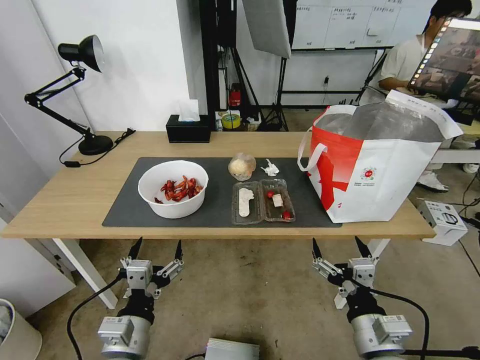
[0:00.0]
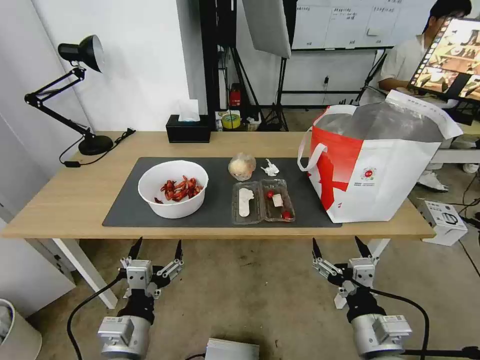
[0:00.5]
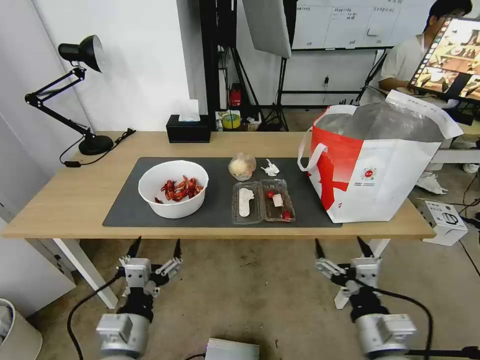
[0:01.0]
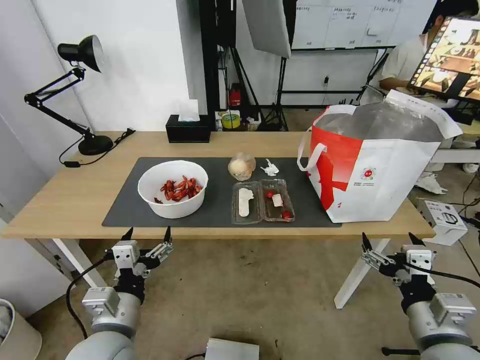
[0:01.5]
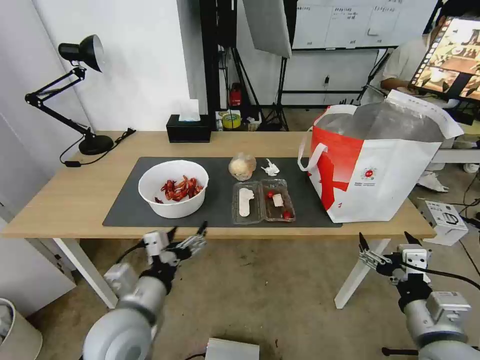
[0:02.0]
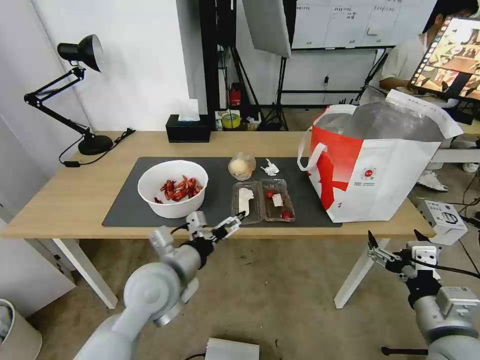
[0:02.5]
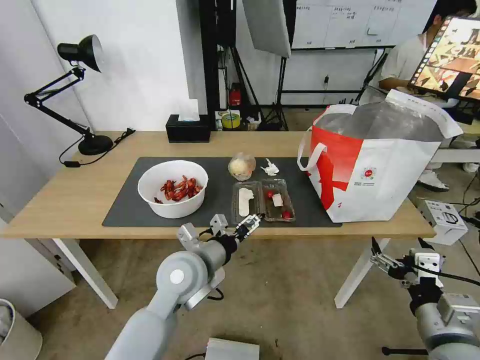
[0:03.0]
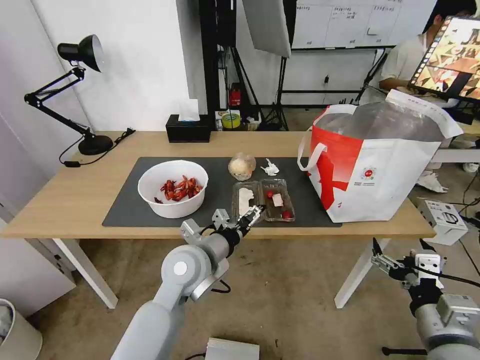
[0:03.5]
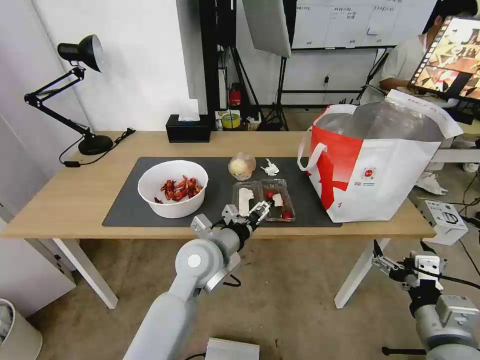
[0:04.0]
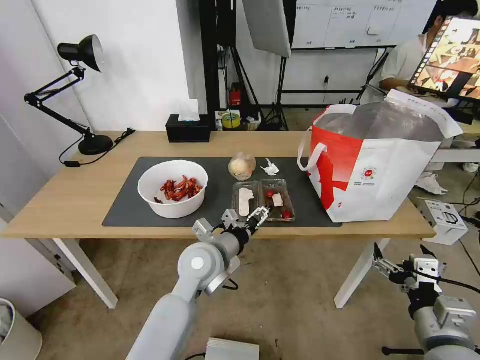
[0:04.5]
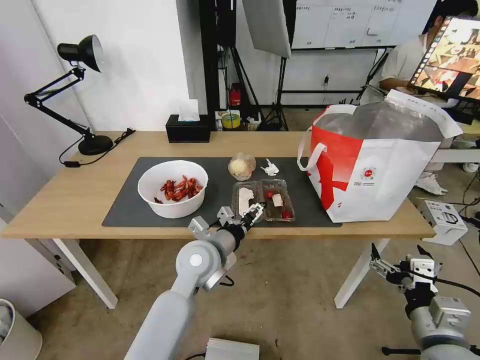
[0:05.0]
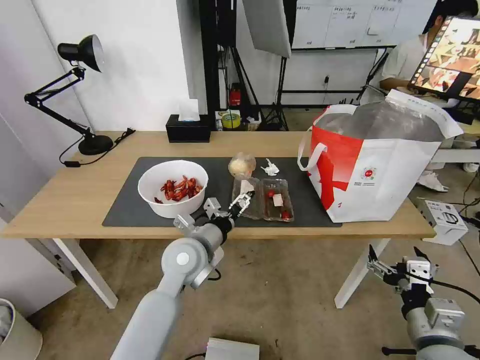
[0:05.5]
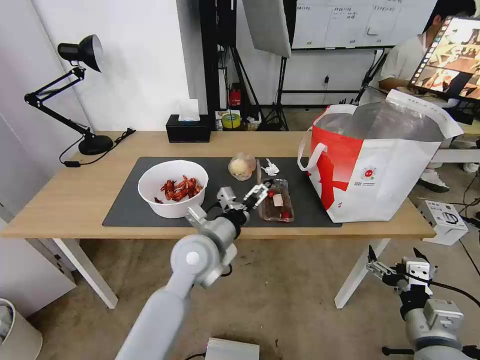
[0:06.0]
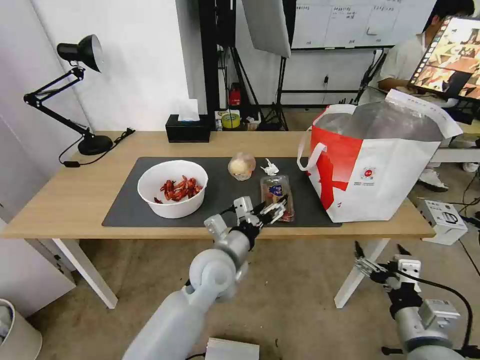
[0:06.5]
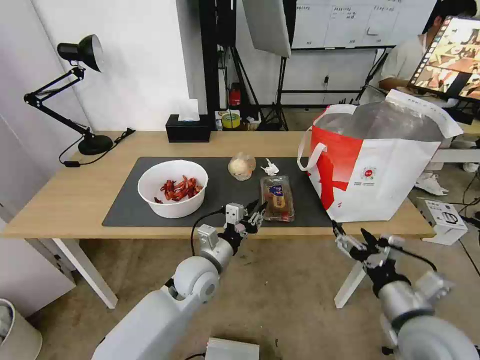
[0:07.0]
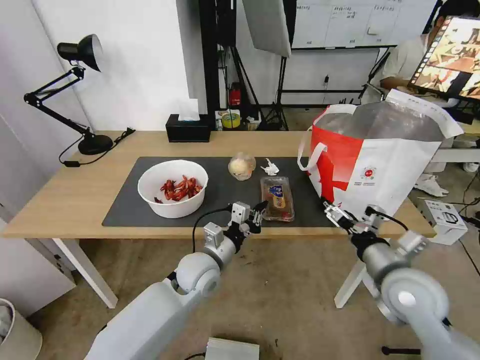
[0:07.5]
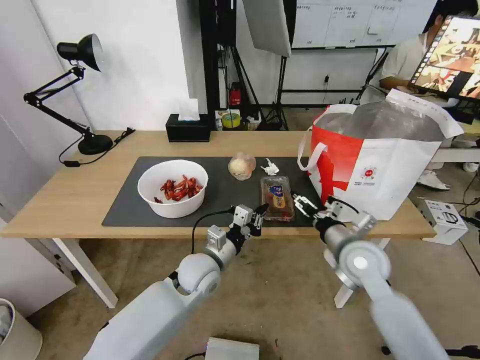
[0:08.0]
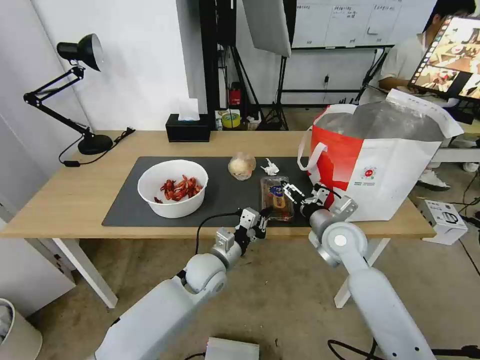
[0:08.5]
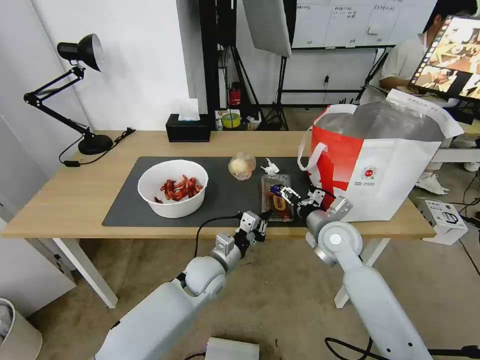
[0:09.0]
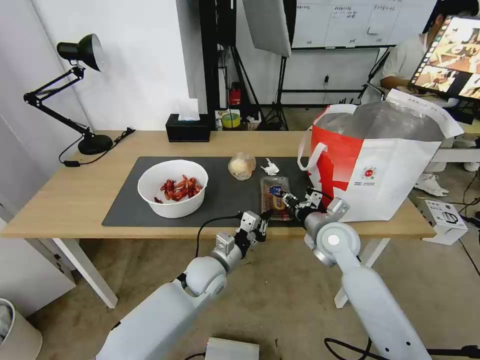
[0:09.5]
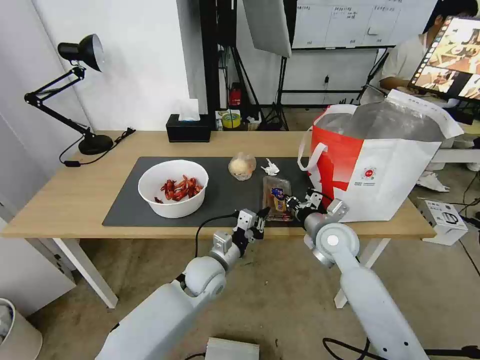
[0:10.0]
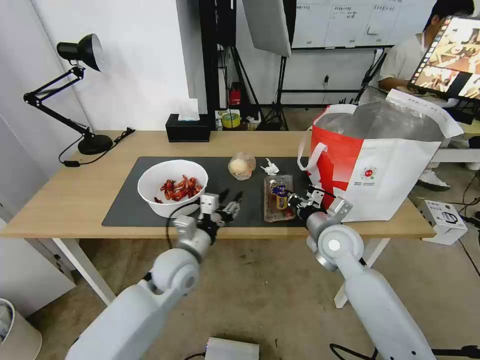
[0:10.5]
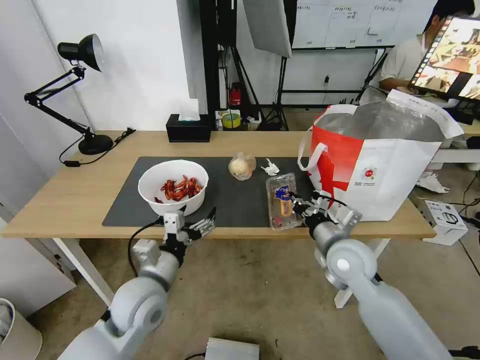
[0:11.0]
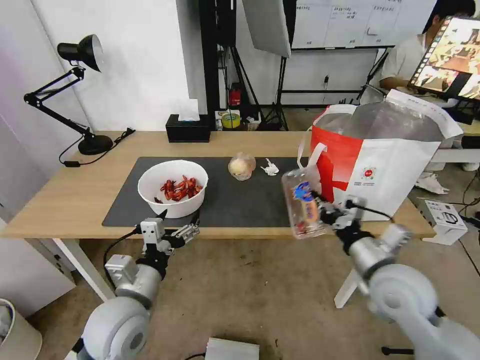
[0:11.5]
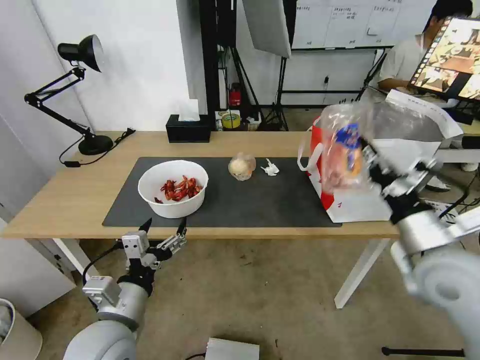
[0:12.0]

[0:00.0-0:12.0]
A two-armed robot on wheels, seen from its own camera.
Task of the whole recording: Pick up the trash from the table and place it into the takeout bag.
0:02.0 to 0:04.0: The left gripper is displaced forward and to the right by some 15 cm.
0:04.0 to 0:06.0: The grippers make only small movements.
0:06.0 to 0:08.0: The left gripper is displaced downward by about 10 cm, and closes. Meanwhile the right gripper goes roughly 20 cm forward.
0:08.0 to 0:10.0: The right gripper is displaced forward by some 5 cm, and closes up.
0:10.0 to 0:12.0: The right gripper shifts about 20 cm backward, upward and to the right. Meanwhile the left gripper is displaced backward, to the left and upward by some 25 cm, and opens its fingers.

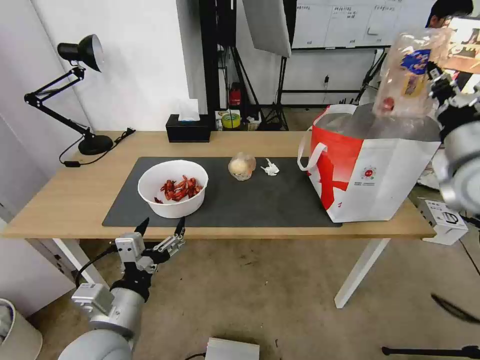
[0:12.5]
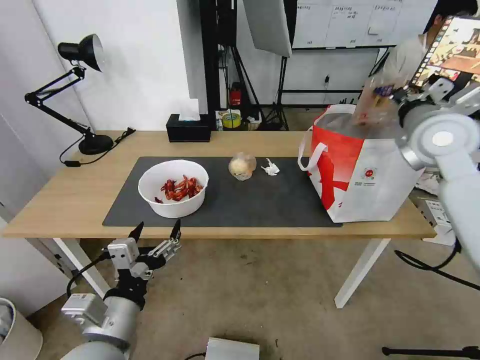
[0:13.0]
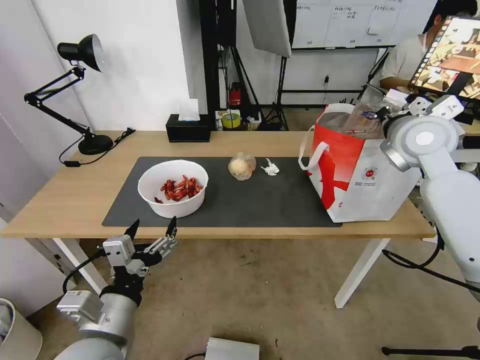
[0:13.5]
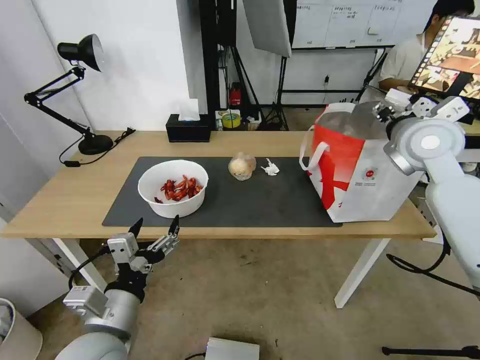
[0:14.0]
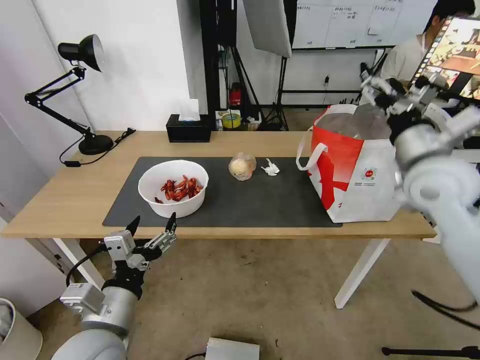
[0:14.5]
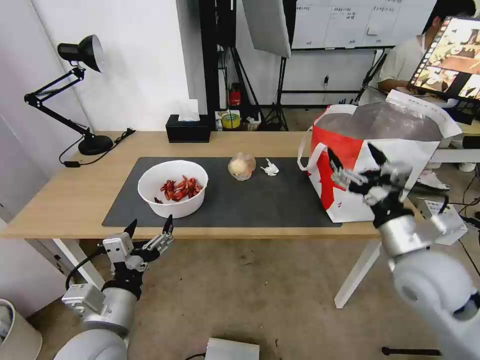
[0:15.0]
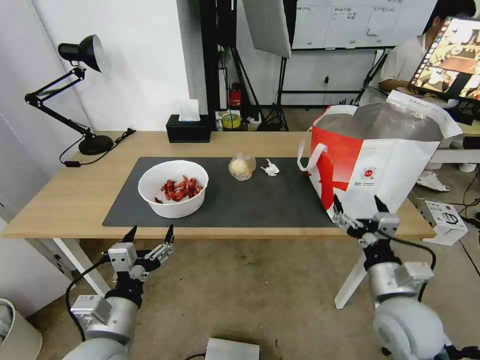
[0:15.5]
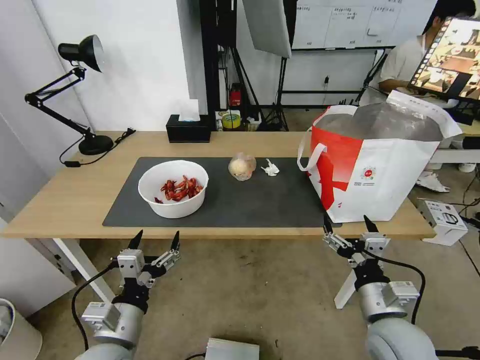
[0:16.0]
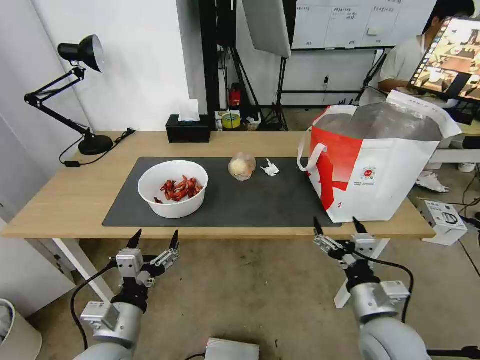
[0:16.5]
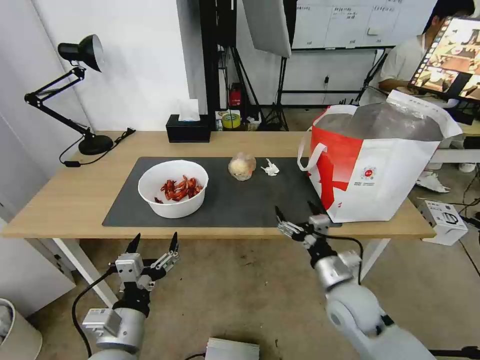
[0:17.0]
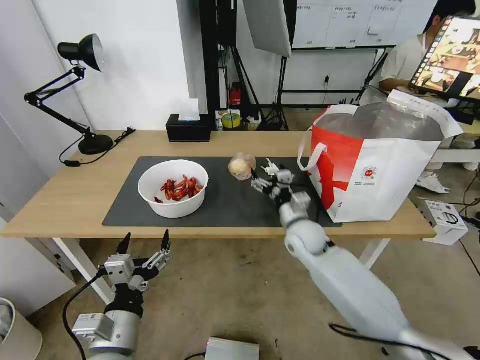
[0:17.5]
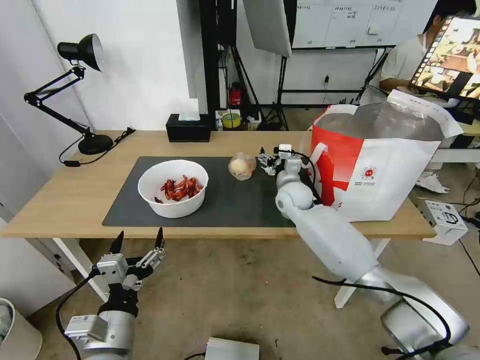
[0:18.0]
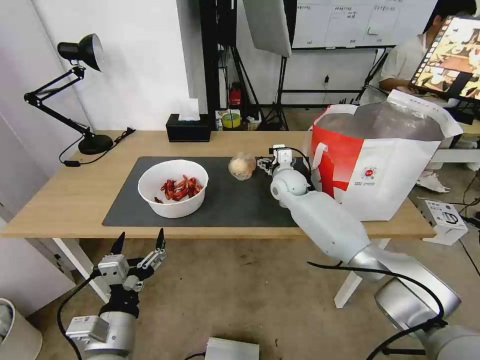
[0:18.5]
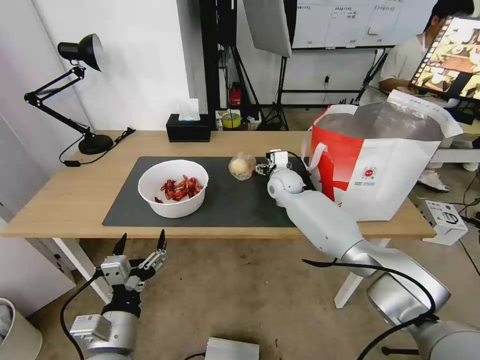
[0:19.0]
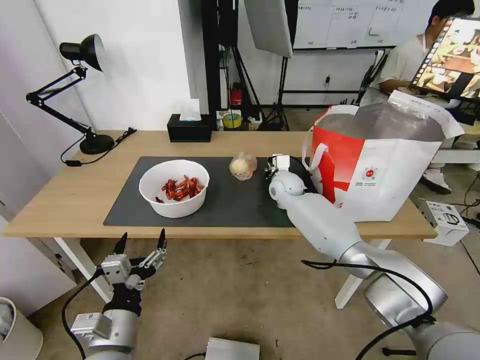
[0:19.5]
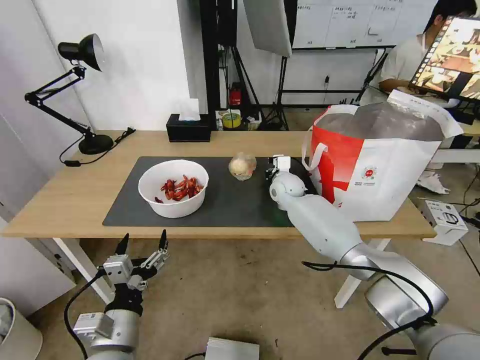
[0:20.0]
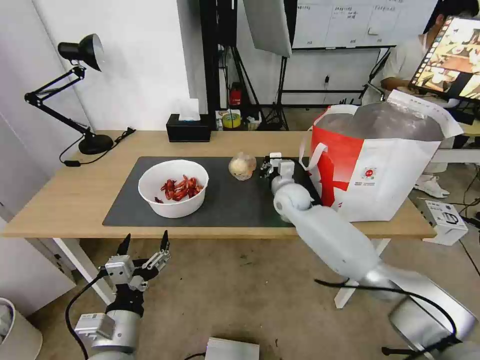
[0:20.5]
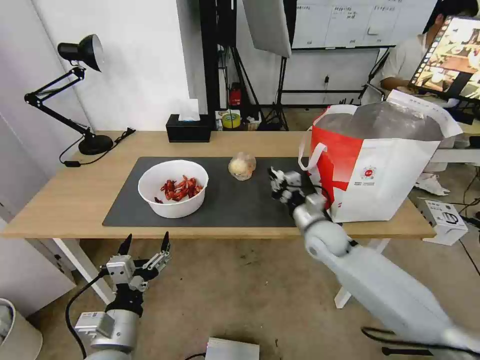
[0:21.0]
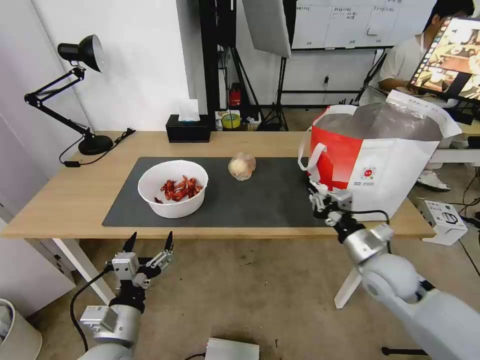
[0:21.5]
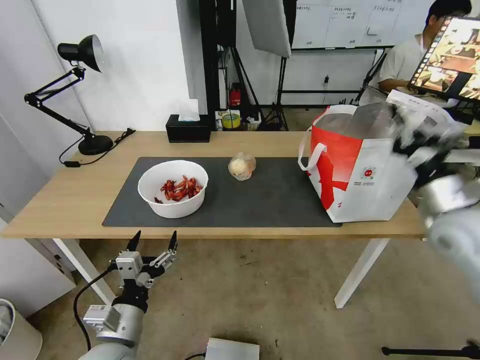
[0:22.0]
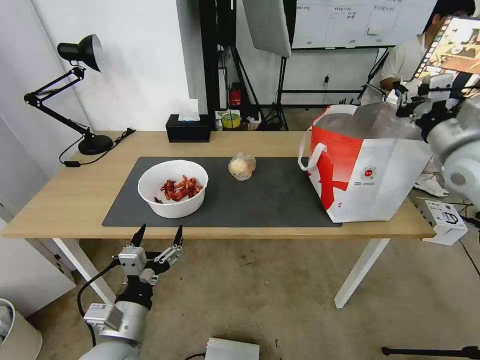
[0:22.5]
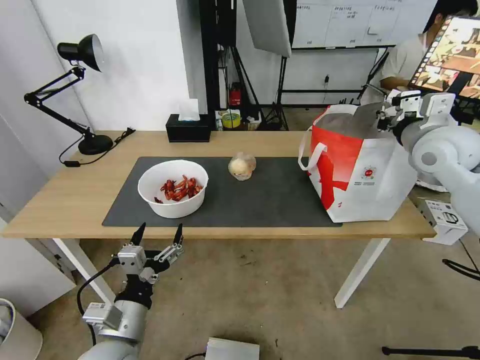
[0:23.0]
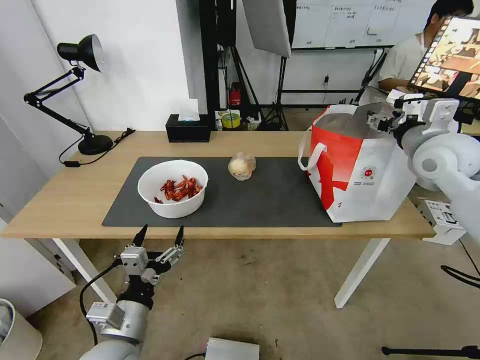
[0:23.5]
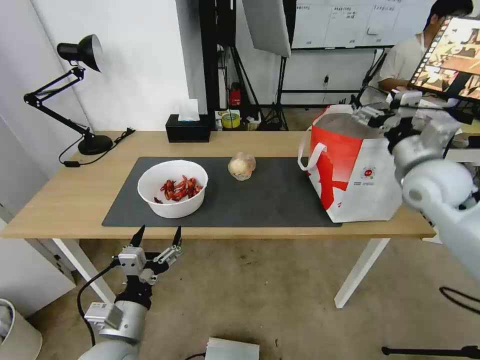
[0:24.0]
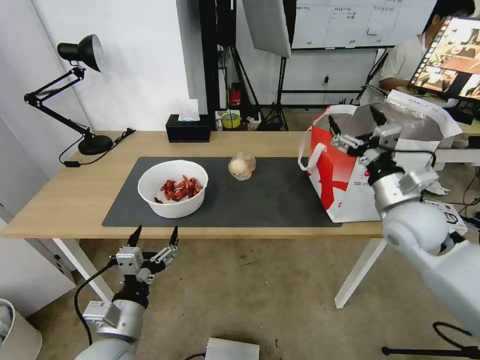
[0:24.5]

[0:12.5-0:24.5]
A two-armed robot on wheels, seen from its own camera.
Task of the whole recording: Pick up the trash from the table and place it into the takeout bag.
0:12.5 to 0:14.5: The right gripper shifts roughly 5 cm to the left, travels forward and back again, about 10 cm each way, and opens.
0:14.5 to 0:16.5: The right gripper is displaced downward and backward by some 30 cm, while the left gripper is displaced downward by roughly 5 cm.
0:16.5 to 0:18.5: The right gripper goes approximately 40 cm forward.
0:18.5 to 0:20.5: The right gripper closes up.
0:20.5 to 0:22.5: The right gripper goes approximately 35 cm to the right, upward and backward.
0:22.5 to 0:24.5: The right gripper goes about 15 cm downward and to the left, and opens up.

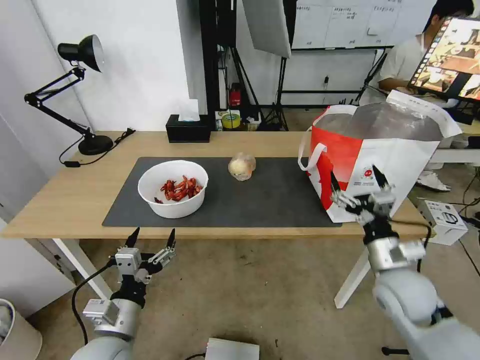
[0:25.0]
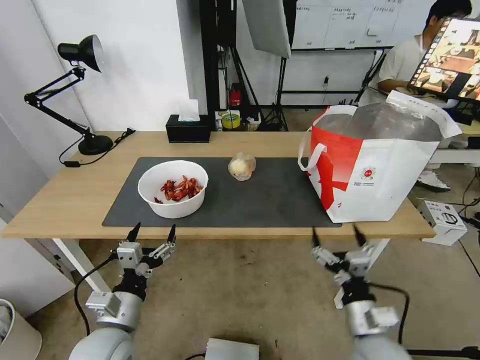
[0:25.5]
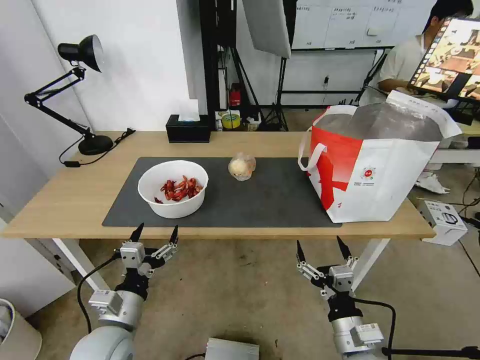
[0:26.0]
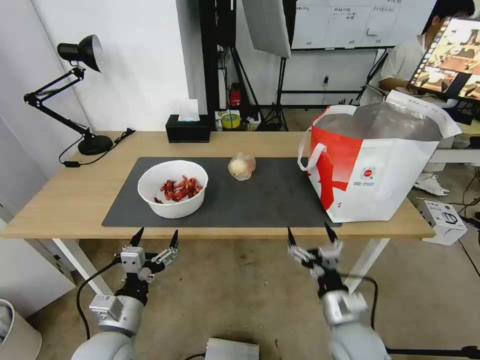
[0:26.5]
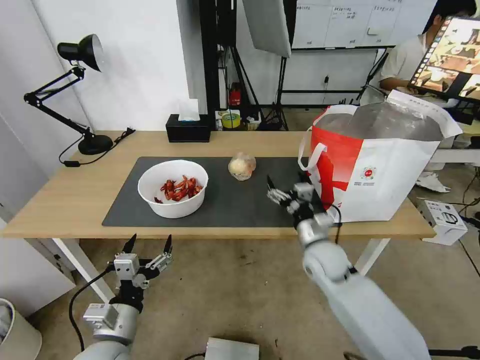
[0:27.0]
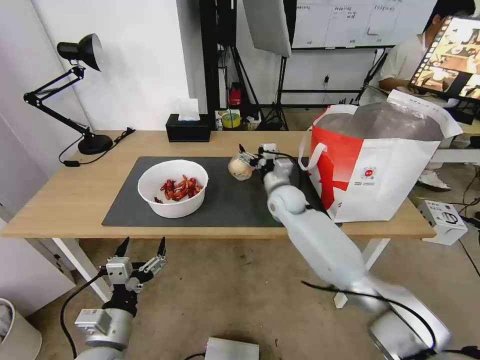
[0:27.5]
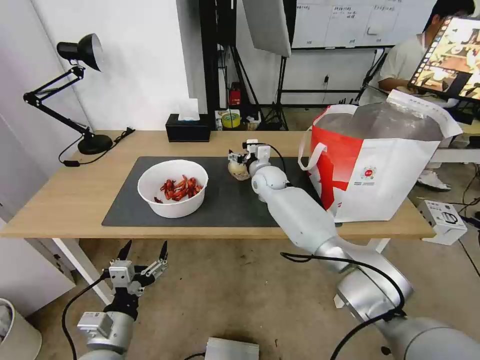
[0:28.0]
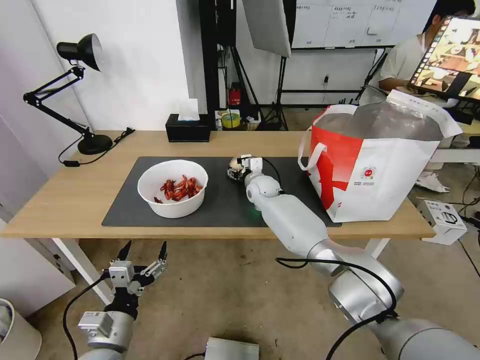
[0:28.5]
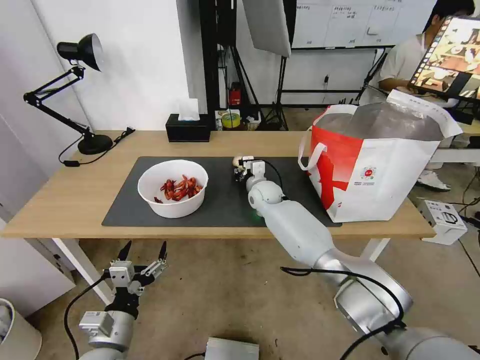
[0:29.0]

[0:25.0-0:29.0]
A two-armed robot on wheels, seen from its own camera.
Task of the whole recording: Pick up the trash from the table and place it into the takeout bag.
0:25.0 to 0:27.0: The right gripper travels forward and to the left by approximately 15 cm.
0:27.0 to 0:29.0: The right gripper heads forward and to the left, covering roughly 25 cm, and closes up.
